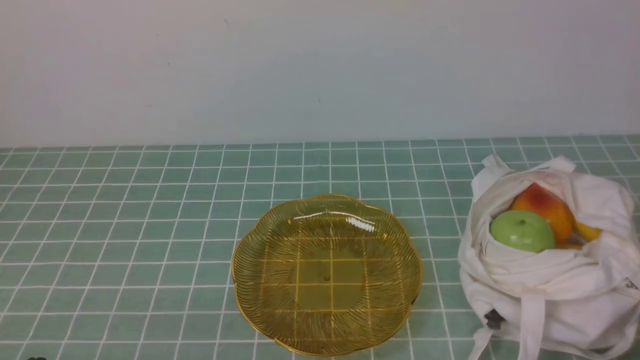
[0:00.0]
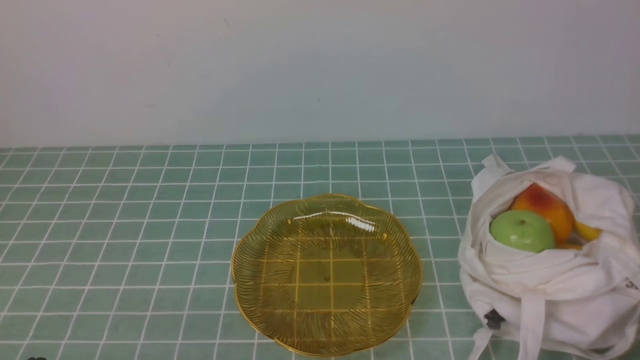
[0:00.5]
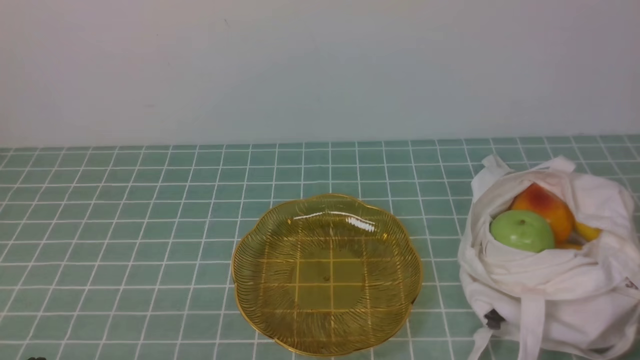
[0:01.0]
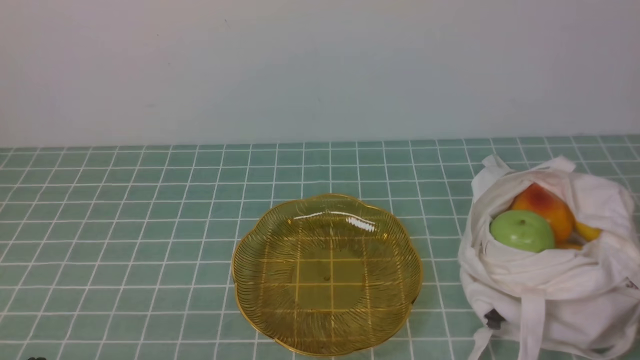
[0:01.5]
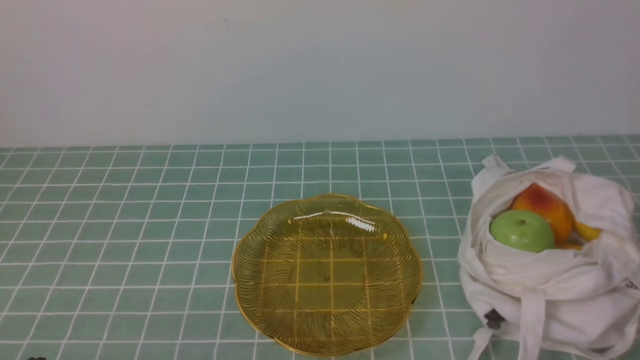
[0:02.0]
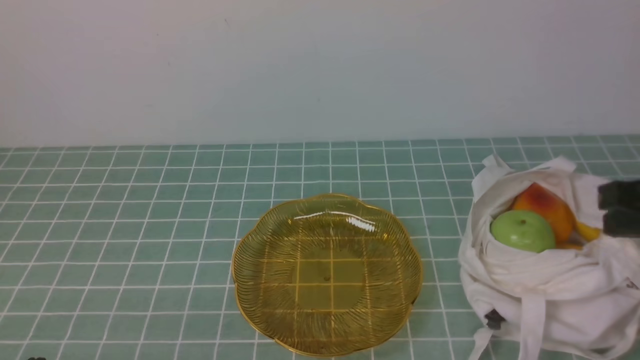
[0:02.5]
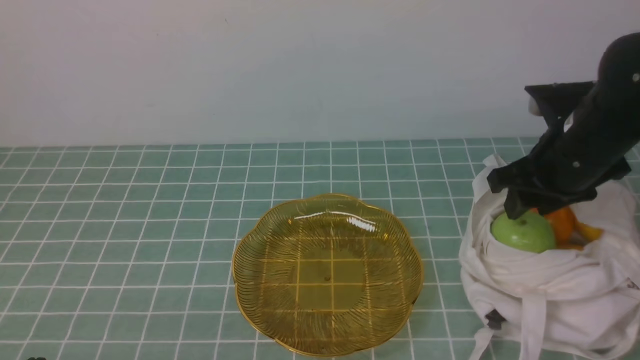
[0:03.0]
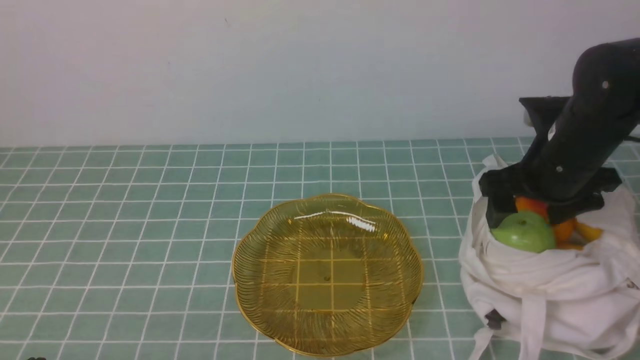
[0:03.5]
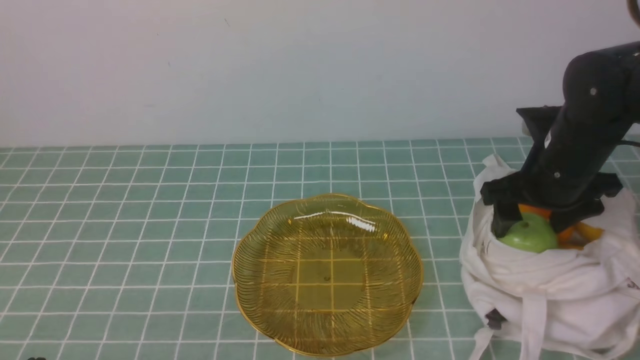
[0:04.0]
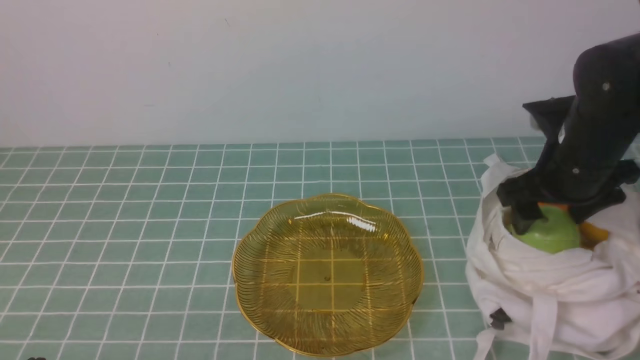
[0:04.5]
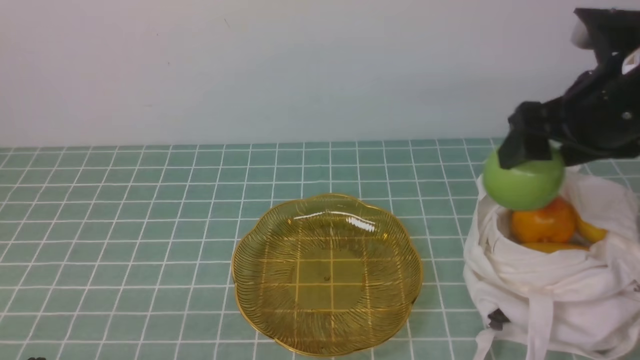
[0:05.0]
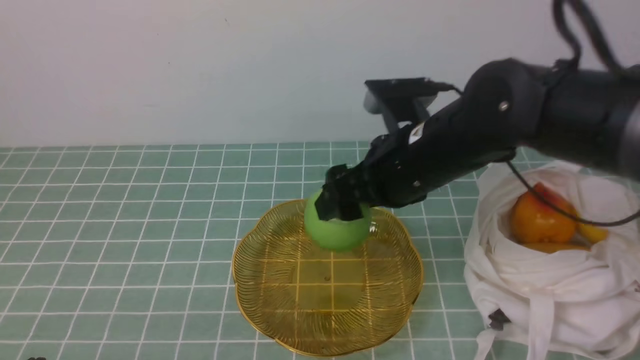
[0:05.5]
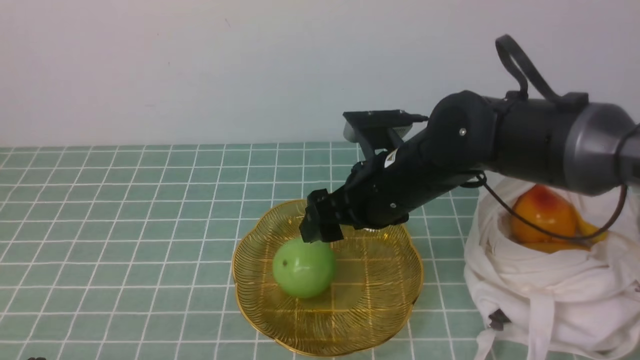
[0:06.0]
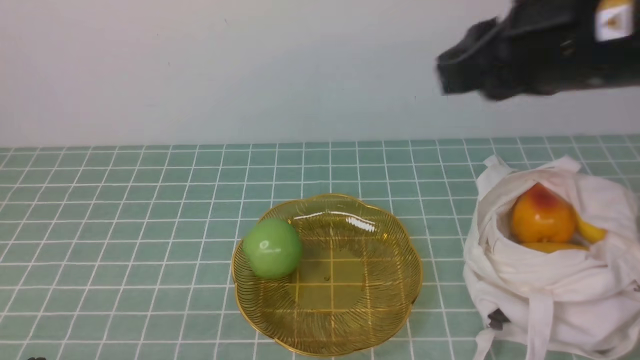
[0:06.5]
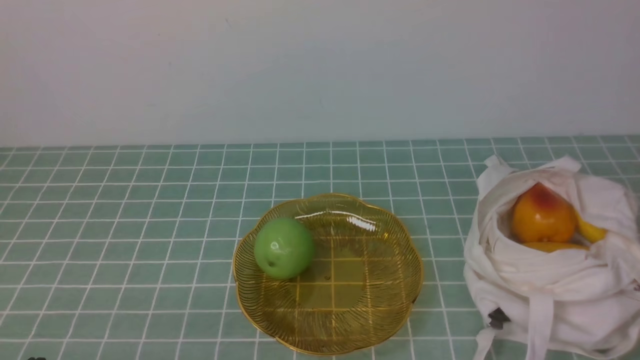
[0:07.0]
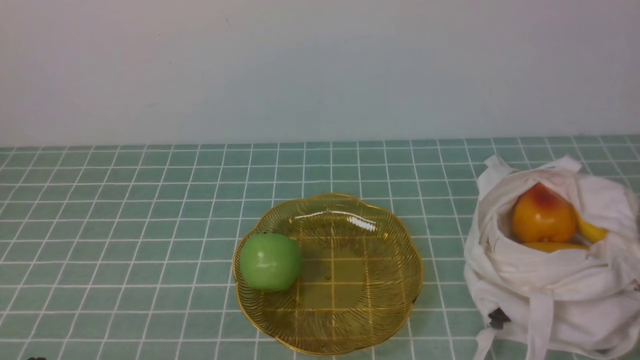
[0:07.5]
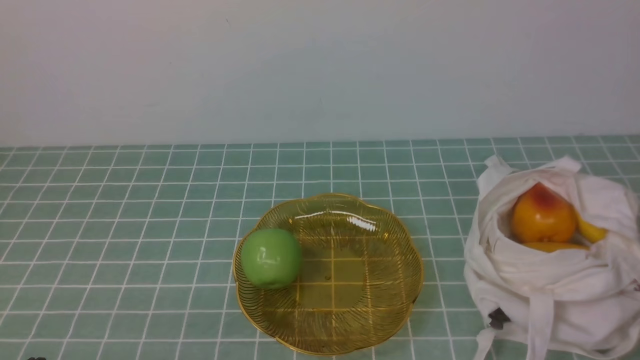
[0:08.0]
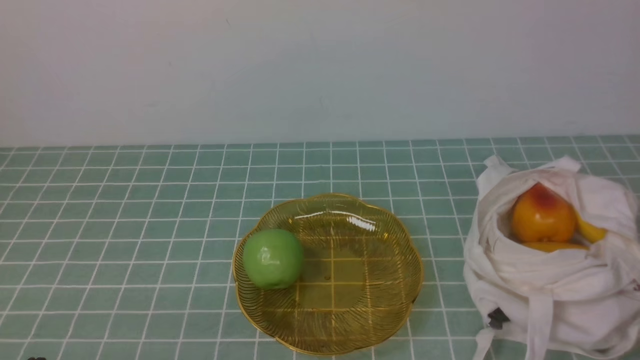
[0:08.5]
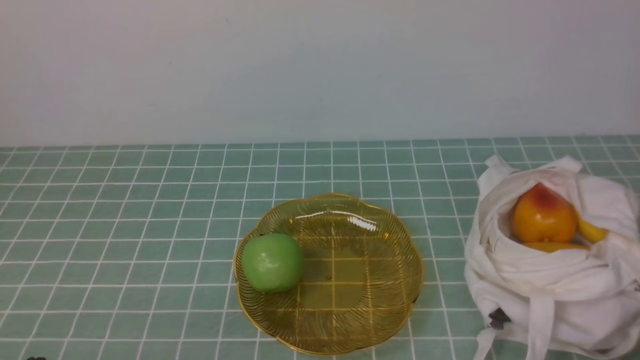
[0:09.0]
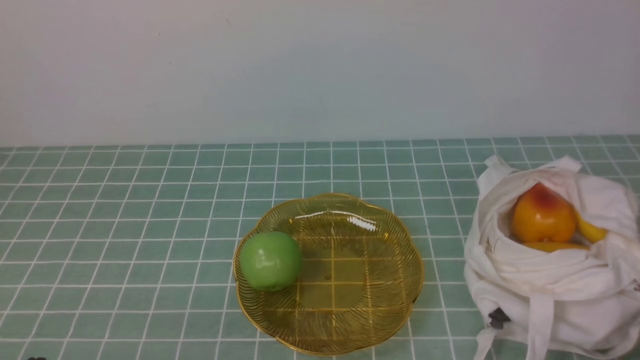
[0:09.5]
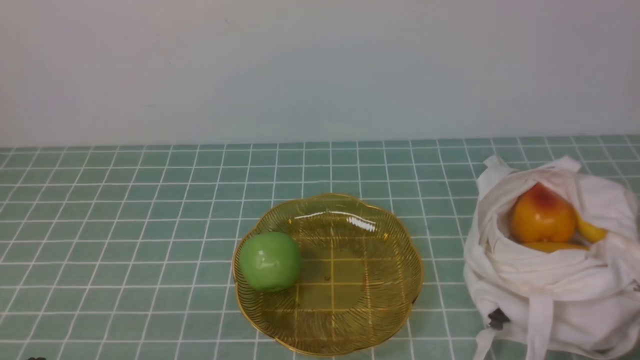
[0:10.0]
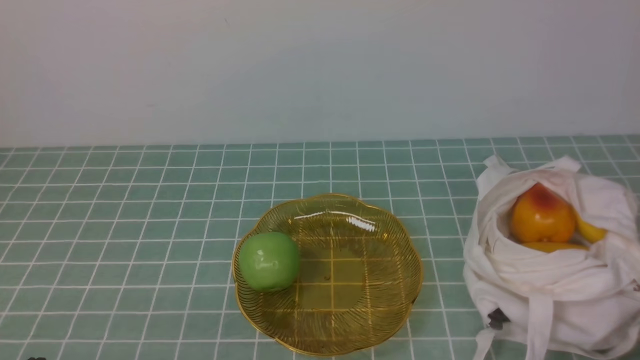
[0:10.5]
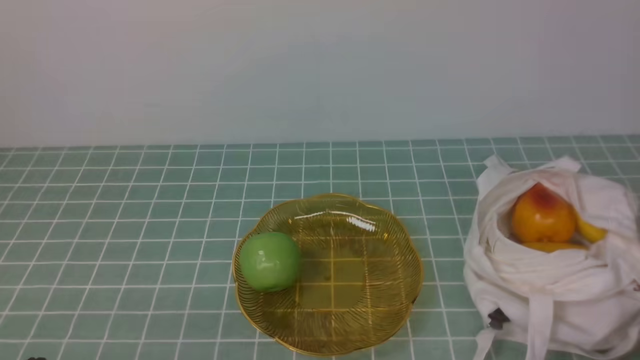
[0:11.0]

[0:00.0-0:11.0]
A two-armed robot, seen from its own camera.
Step, 0:00.0 to 0:04.0: use the right arm to grab an apple from the bag.
Step, 0:04.5 to 0:05.5: use the right arm to put the apple into the empty plate on the left.
0:02.0 to 0:03.5: The right gripper shifts about 25 cm forward, and opens its fingers.
0:03.5 to 0:05.5: The right gripper shifts some 15 cm to the left.
0:05.5 to 0:07.5: The right gripper travels backward and to the right by some 35 cm, and closes.

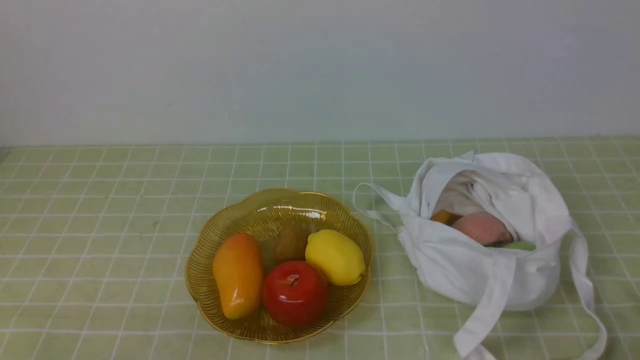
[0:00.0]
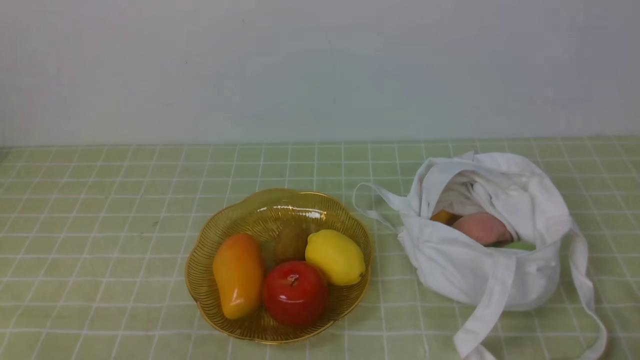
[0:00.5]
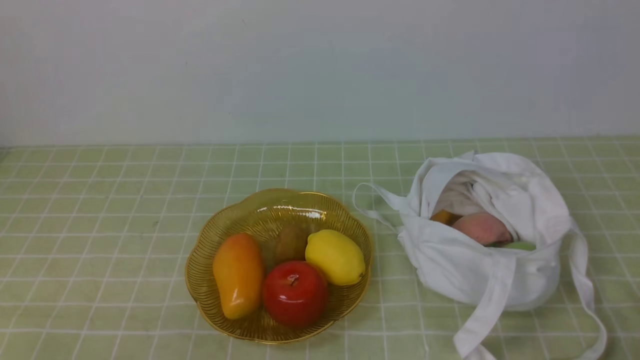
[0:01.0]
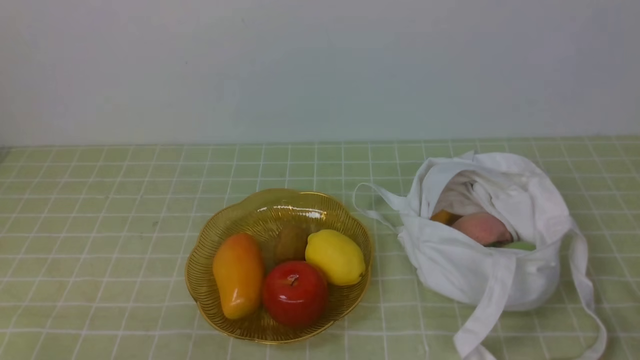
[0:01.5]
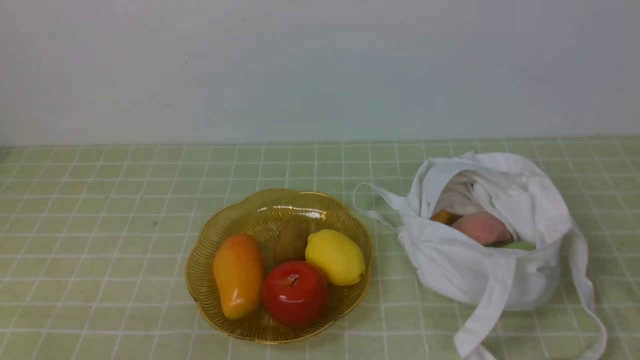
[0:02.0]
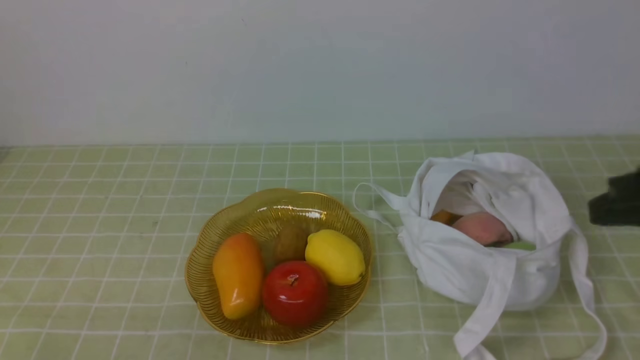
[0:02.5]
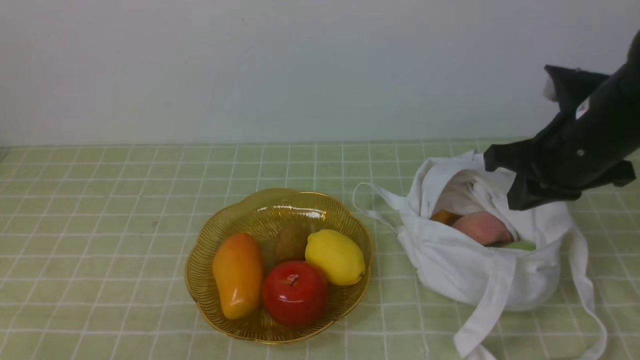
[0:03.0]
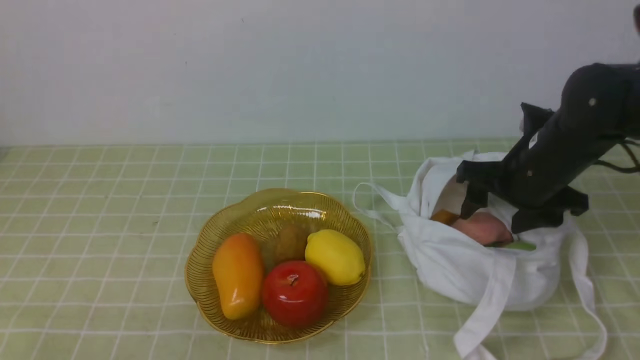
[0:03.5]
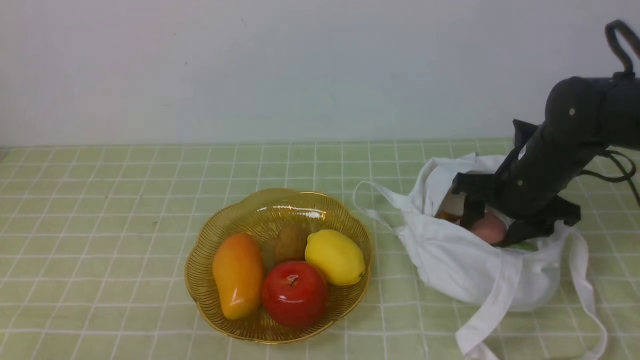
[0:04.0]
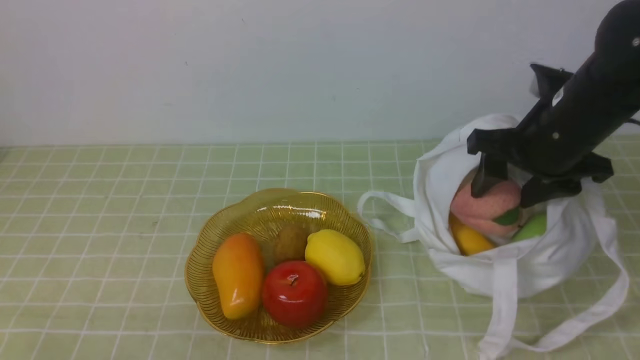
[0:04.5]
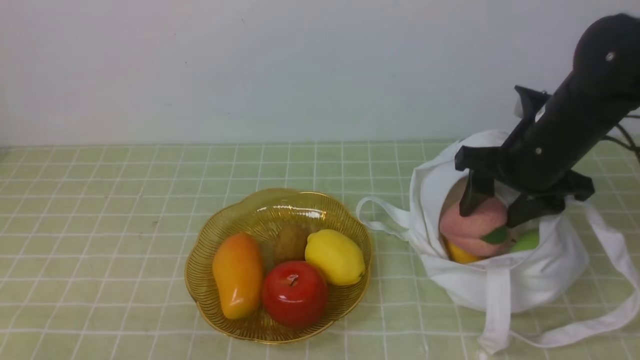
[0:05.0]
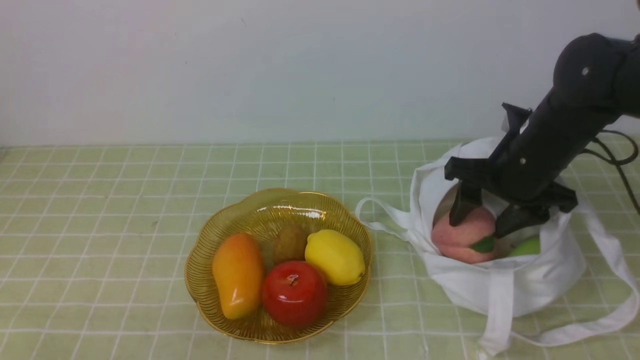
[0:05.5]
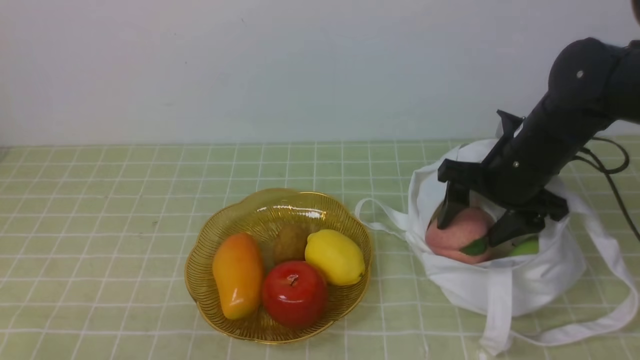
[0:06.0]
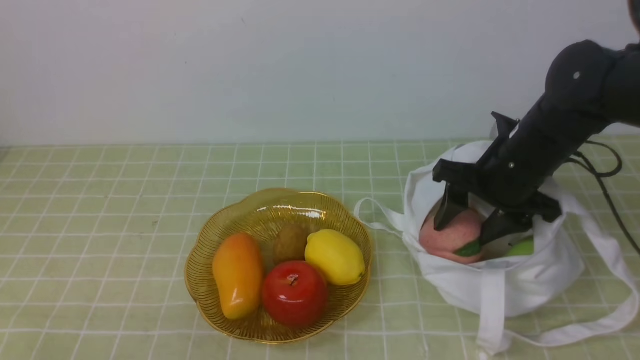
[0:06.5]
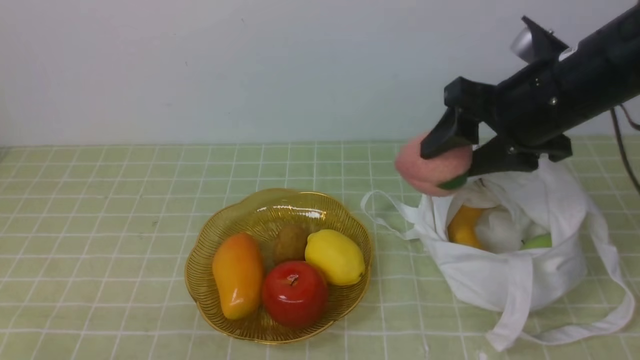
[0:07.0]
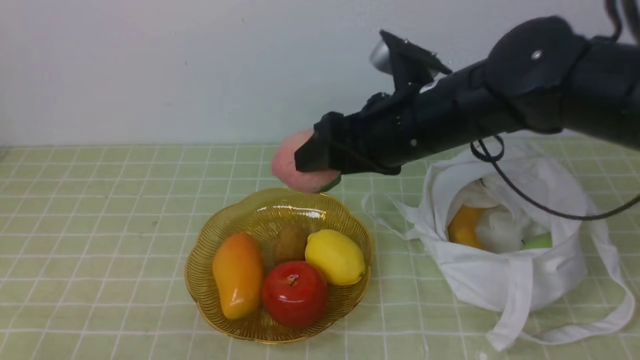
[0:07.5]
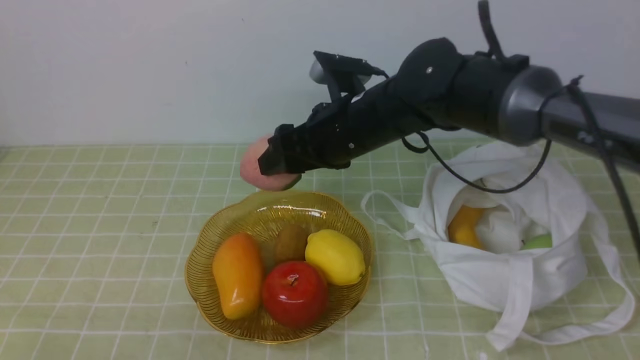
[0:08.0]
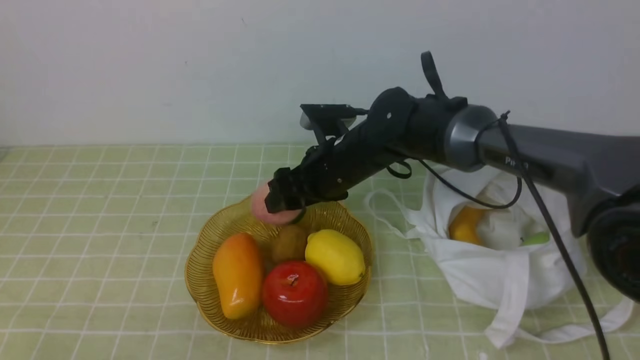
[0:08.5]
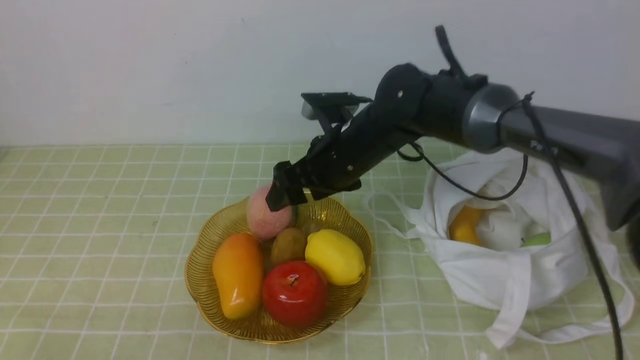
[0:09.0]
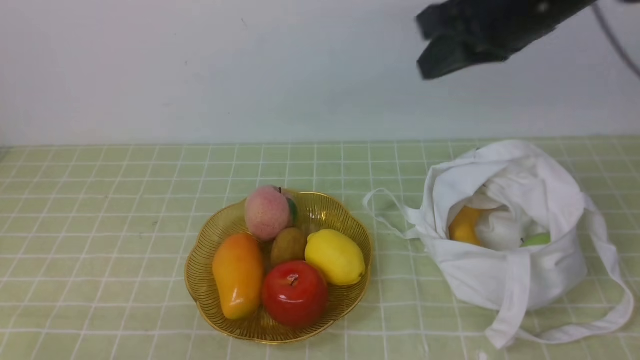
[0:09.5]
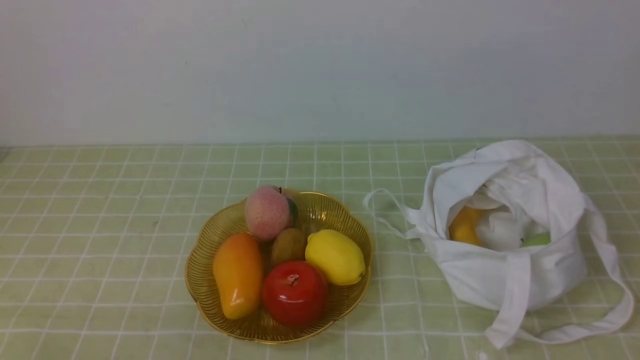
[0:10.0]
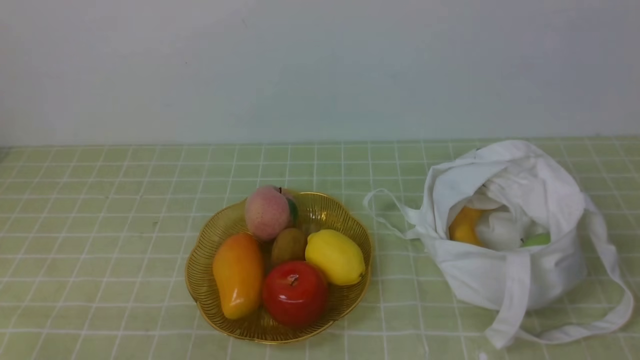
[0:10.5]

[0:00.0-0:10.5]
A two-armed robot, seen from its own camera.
Step, 0:00.0 to 0:04.0: use the right arm to grab a peach from the bag.
Step, 0:04.5 to 0:08.5: use the right arm to put the peach into the empty plate on the left.
0:02.0 to 0:04.0: The right gripper goes some 30 cm forward, and opens.
0:06.5 to 0:08.5: The right gripper shifts approximately 20 cm to the left.
0:08.5 to 0:10.5: The right gripper is displaced backward and to the right by about 50 cm, and closes up.
